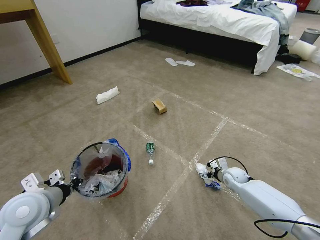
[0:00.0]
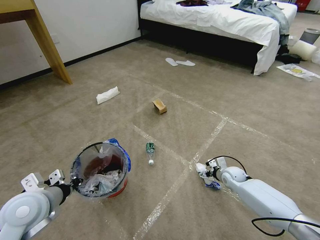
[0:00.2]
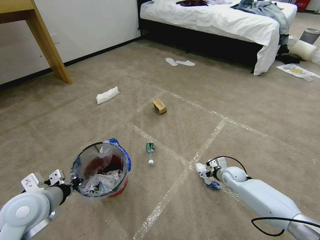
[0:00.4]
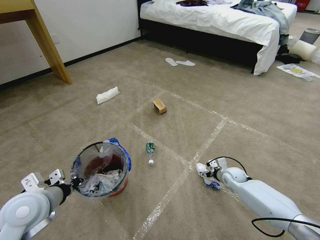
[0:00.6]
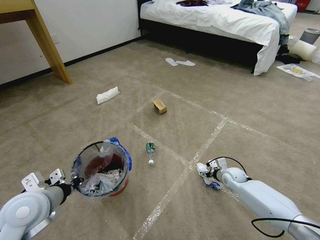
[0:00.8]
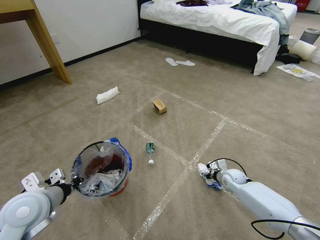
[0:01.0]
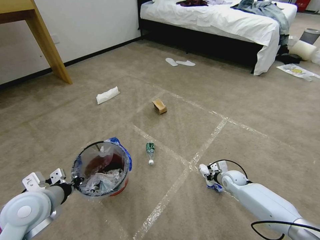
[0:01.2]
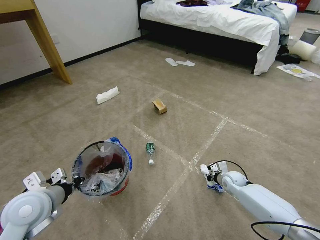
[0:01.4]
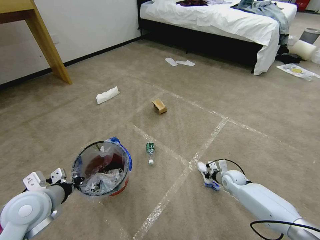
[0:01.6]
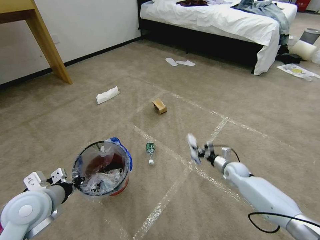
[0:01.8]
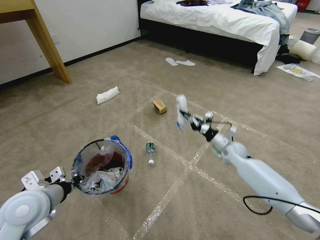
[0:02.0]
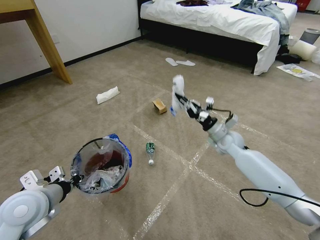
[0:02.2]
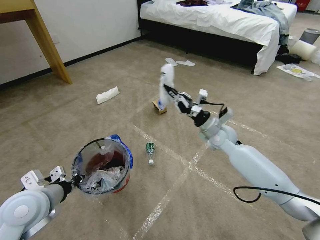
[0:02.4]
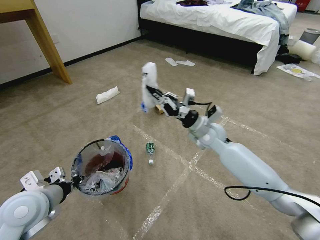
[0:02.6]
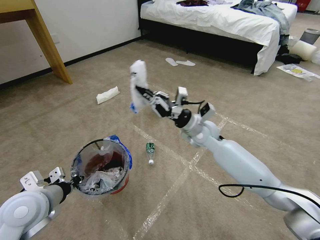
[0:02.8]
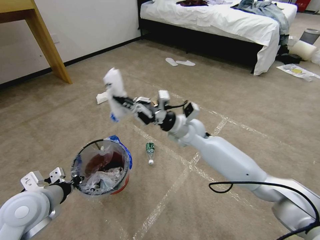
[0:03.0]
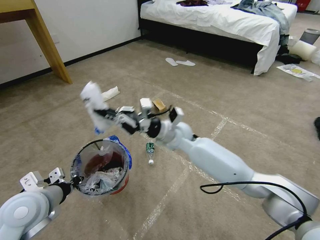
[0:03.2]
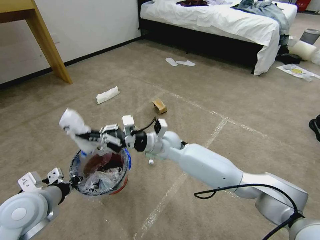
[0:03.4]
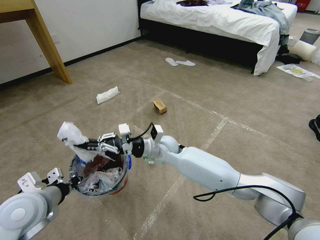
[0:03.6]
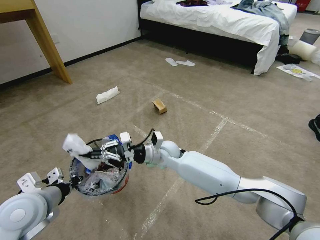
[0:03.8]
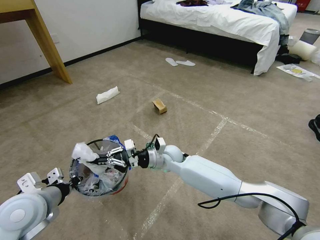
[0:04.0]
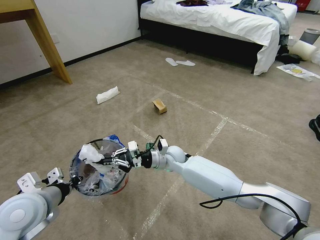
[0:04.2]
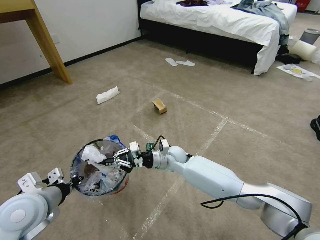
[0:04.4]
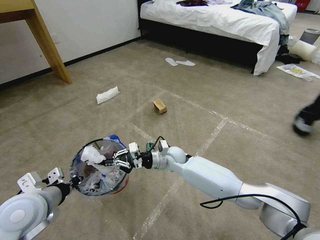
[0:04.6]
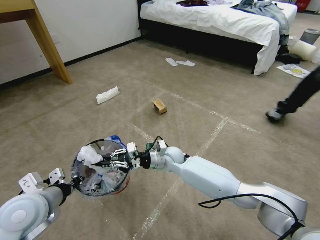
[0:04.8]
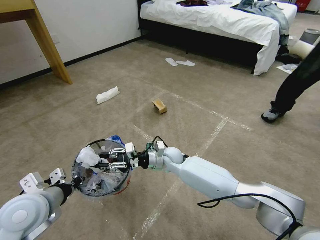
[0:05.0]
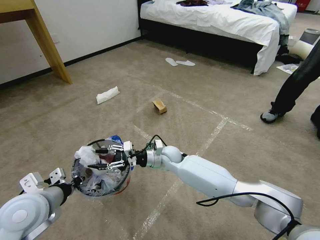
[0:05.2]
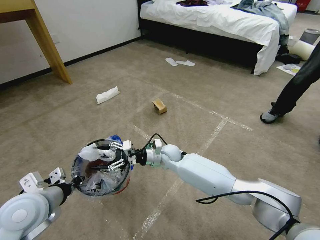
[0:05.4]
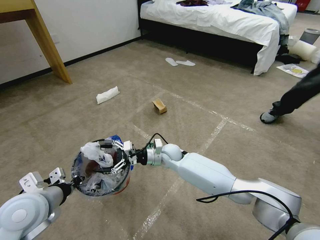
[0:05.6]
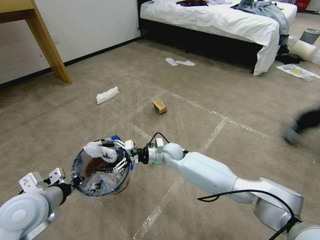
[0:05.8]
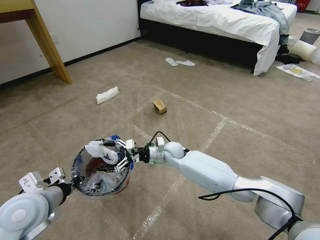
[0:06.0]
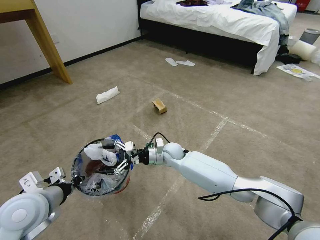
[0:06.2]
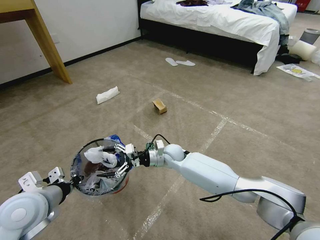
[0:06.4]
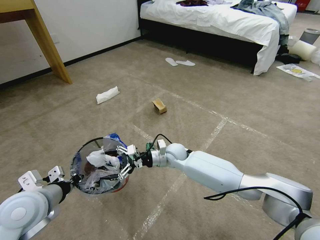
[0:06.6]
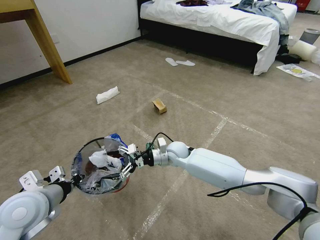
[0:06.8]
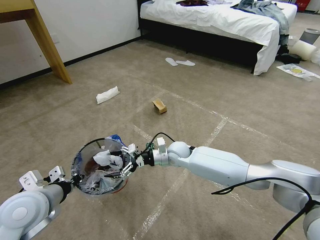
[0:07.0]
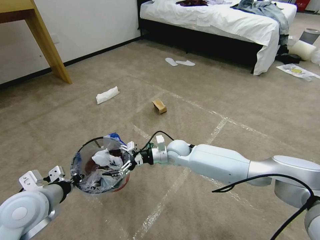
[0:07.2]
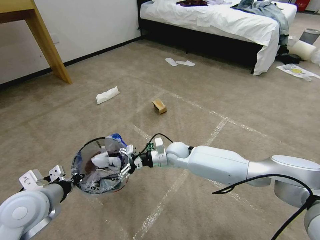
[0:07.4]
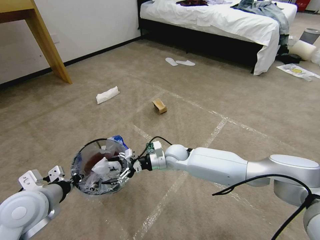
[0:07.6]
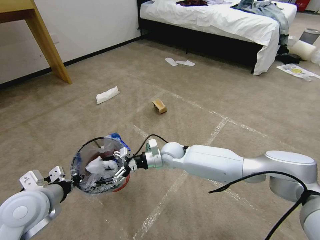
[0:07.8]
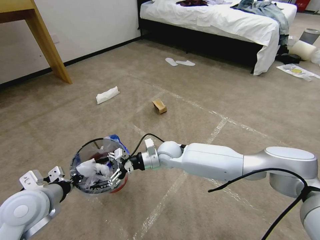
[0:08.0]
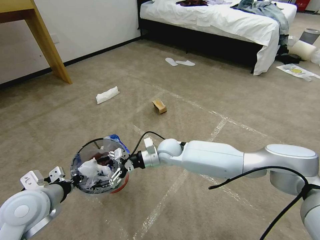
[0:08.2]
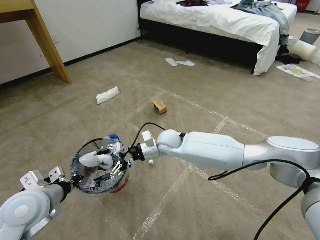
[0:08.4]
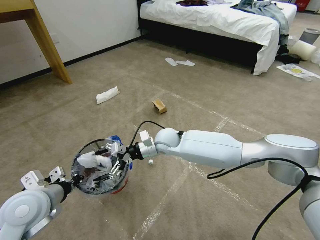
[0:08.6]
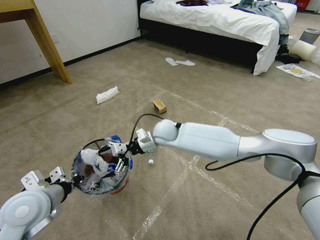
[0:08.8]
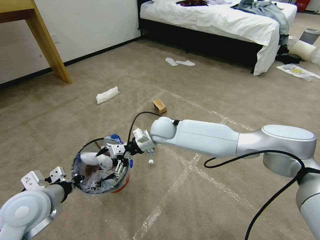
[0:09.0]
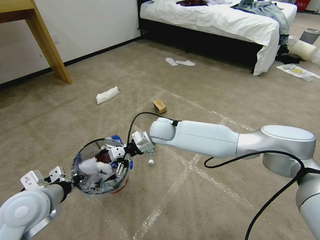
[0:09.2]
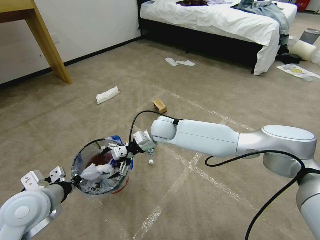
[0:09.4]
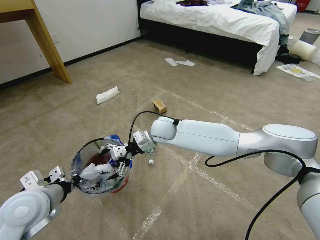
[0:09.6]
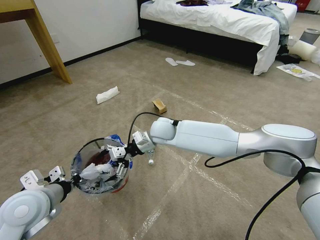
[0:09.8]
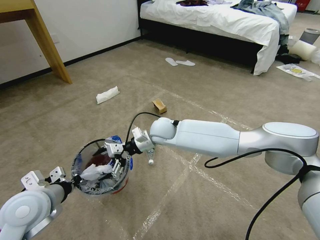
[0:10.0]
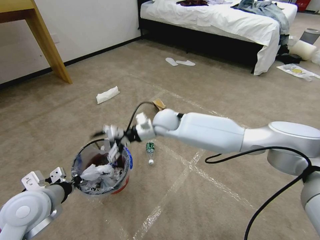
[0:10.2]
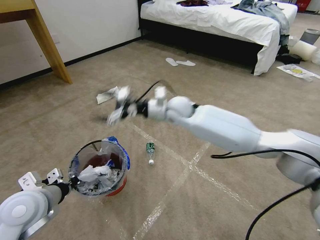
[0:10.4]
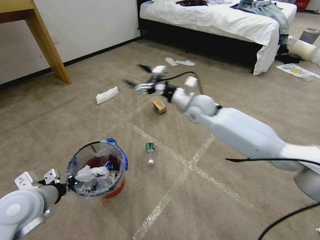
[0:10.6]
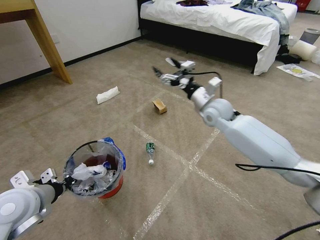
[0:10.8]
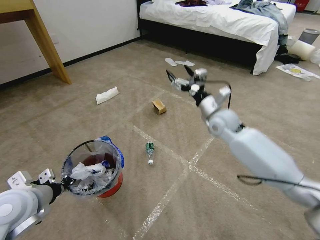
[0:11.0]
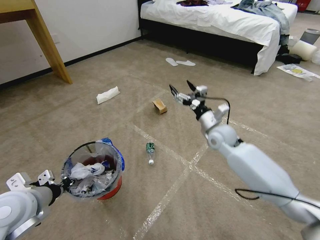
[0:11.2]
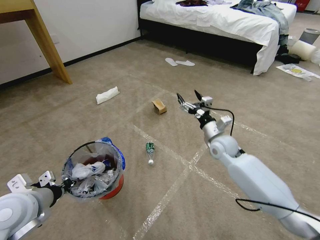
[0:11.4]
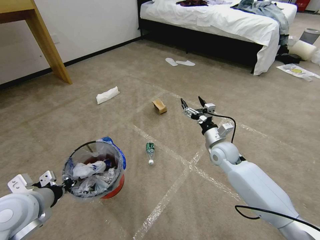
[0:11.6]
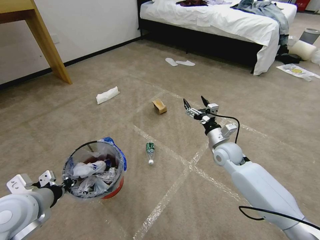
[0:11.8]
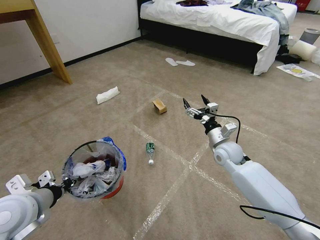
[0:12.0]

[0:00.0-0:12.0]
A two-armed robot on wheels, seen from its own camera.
Task of the whole recording: Pick up the trash bin and place the garbage on the floor into it.
0:00.0 to 0:01.6: The right gripper closes up.
0:01.6 to 0:03.0: The right gripper goes approximately 35 cm upward and to the left.
0:03.0 to 0:04.4: The right gripper goes approximately 15 cm downward.
0:04.4 to 0:06.0: The right gripper opens.
0:06.0 to 0:07.6: The grippers move only a little.
0:07.6 to 0:09.0: The right gripper shifts approximately 10 cm upward and to the left.
0:09.0 to 0:10.4: The right gripper is displaced upward and to the right by about 10 cm.
0:10.4 to 0:12.0: The right gripper goes some 25 cm to the right, downward and backward.

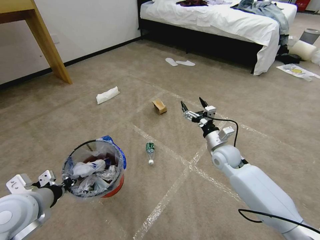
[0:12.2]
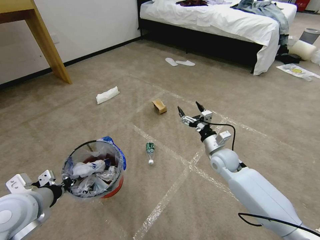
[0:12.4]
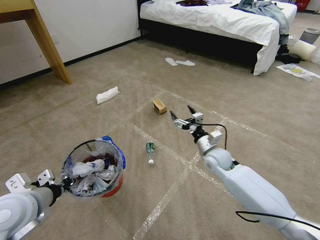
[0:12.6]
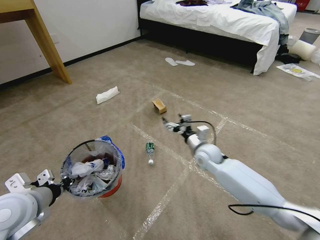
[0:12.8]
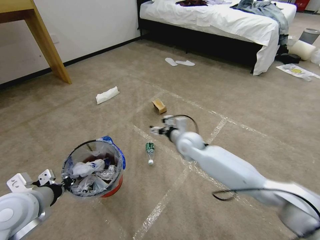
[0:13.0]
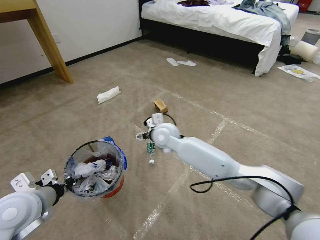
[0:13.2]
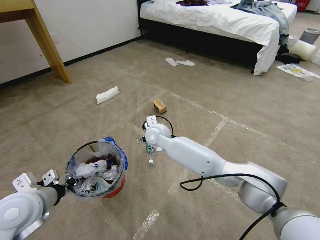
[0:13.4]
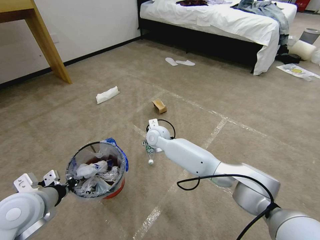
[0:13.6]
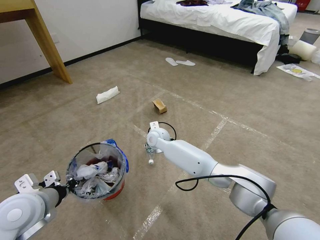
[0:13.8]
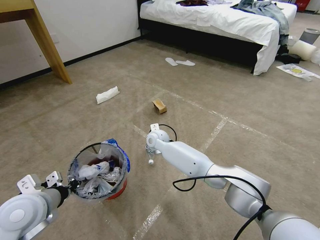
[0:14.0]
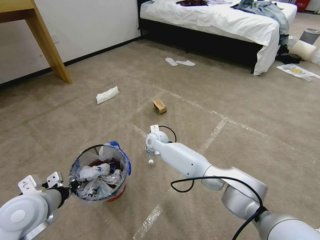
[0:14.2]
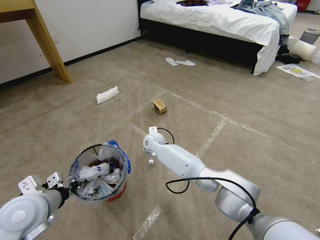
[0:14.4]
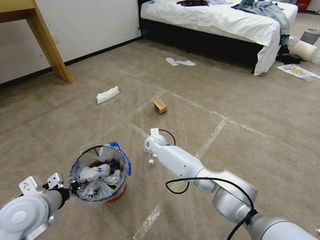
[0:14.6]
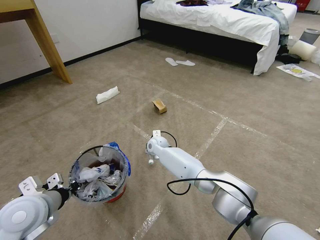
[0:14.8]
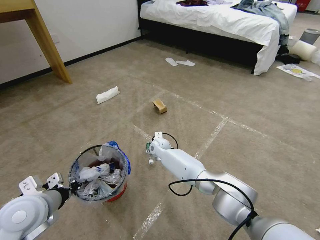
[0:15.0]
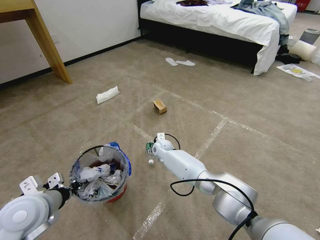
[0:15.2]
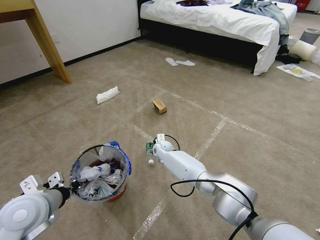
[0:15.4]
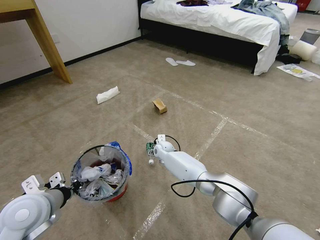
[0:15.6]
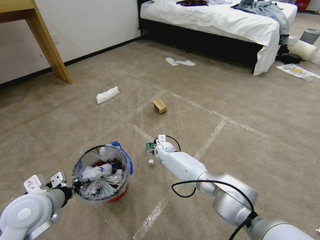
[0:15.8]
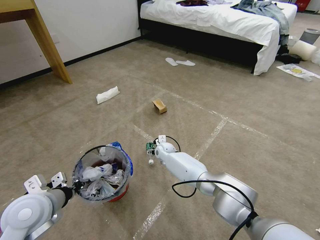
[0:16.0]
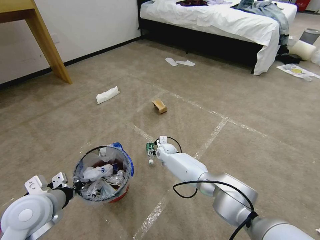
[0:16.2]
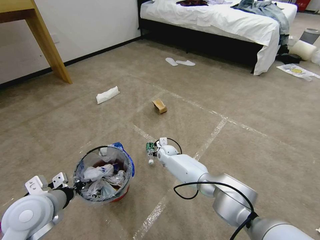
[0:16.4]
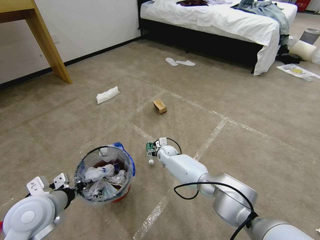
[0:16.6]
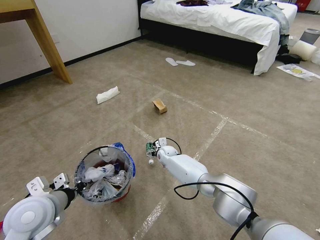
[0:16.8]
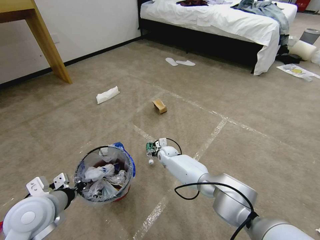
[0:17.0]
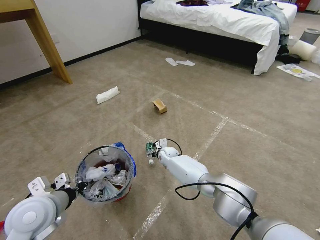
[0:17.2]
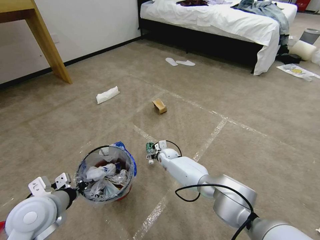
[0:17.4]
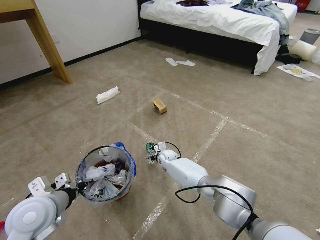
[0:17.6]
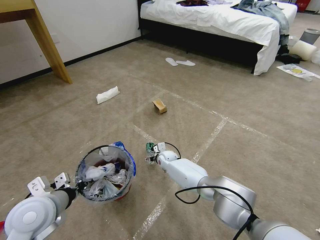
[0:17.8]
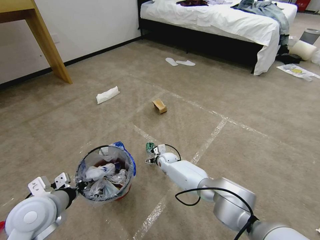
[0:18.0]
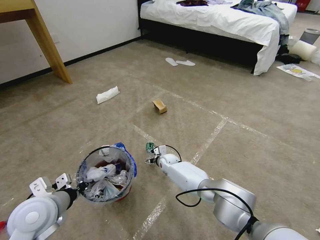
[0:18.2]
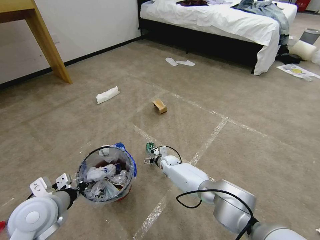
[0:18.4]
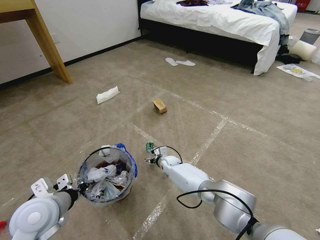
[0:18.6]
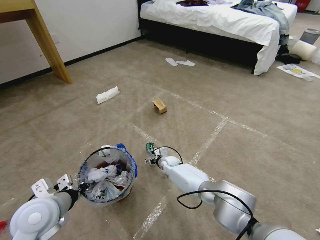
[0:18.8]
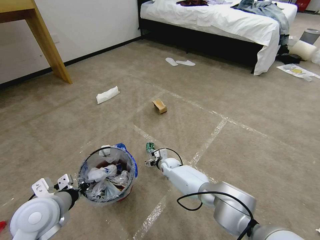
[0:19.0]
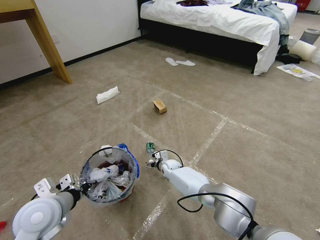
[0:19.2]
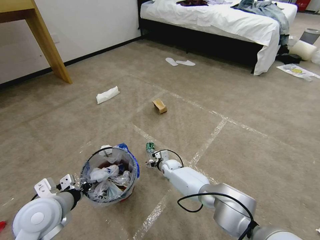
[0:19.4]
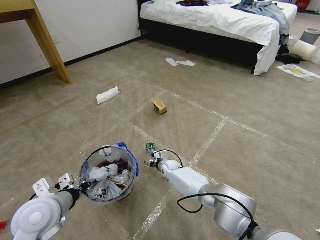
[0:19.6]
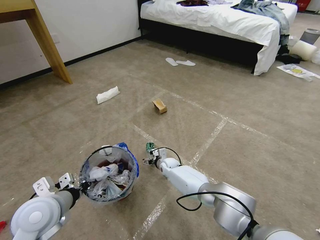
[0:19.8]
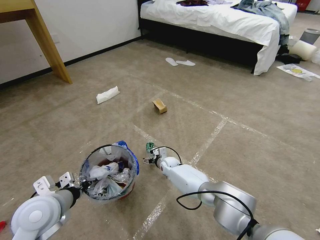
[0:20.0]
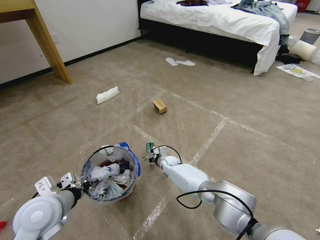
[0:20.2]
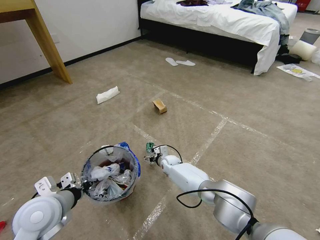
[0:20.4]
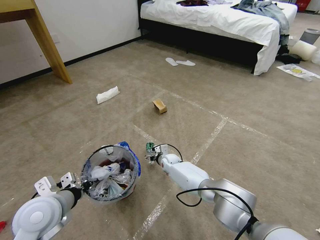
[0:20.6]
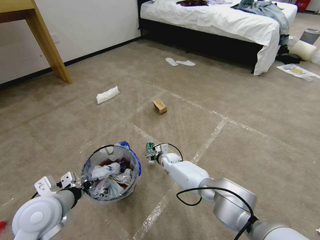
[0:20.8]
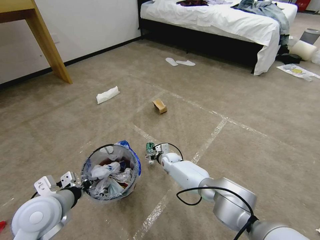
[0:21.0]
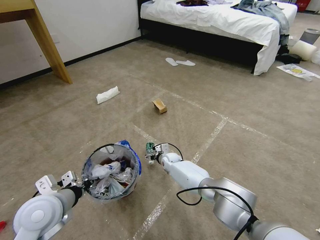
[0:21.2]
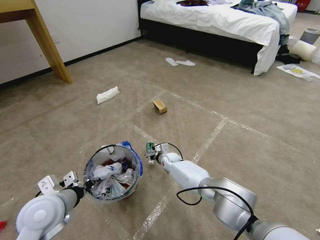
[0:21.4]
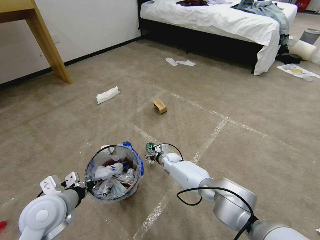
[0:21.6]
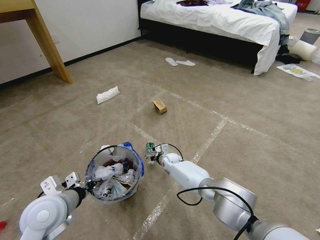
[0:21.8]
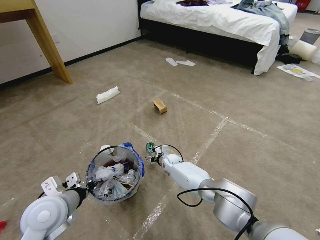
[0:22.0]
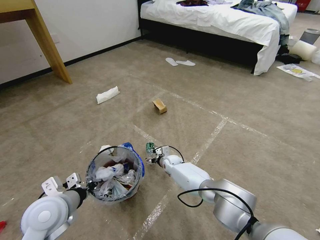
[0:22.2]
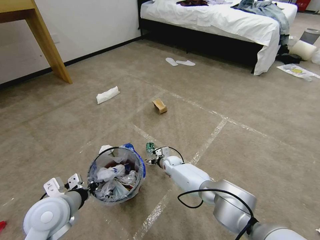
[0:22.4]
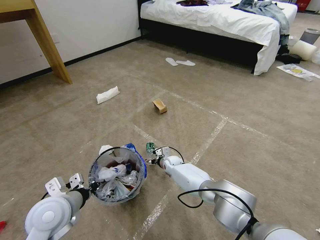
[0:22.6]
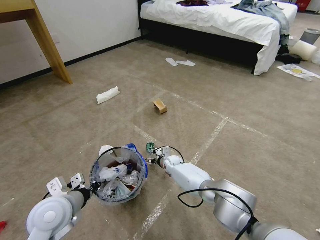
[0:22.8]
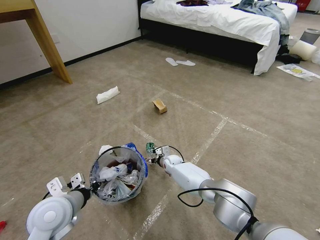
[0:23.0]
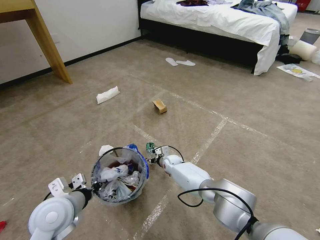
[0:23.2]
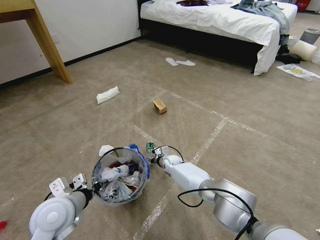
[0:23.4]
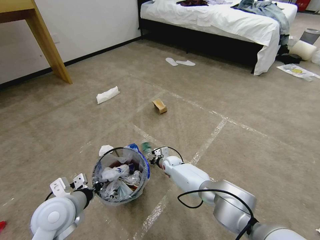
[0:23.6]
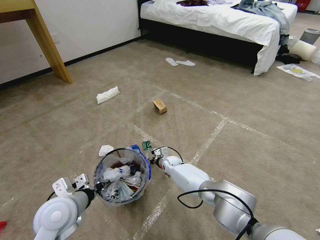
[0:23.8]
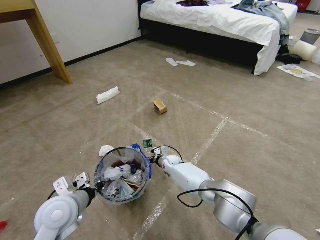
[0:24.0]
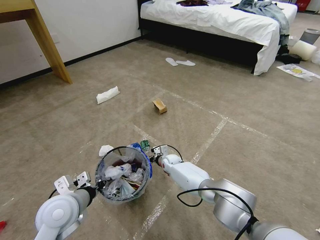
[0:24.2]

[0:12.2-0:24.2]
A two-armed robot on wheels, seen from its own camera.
Task of the whole recording: Pick up the trash bin and place the garbage on the floor into it.
0:12.2 to 0:13.8: The right gripper travels to the left by approximately 25 cm.
0:13.8 to 0:15.2: The right gripper heads downward, covering about 10 cm.
0:15.2 to 0:16.6: The grippers make only small movements.
0:16.6 to 0:18.2: The grippers move only a little.
0:18.2 to 0:22.6: The grippers make only small movements.
0:22.6 to 0:24.2: The right gripper closes its fingers.
